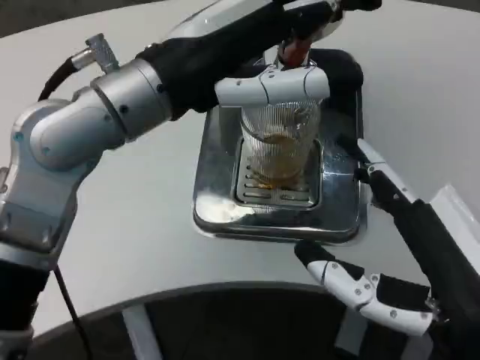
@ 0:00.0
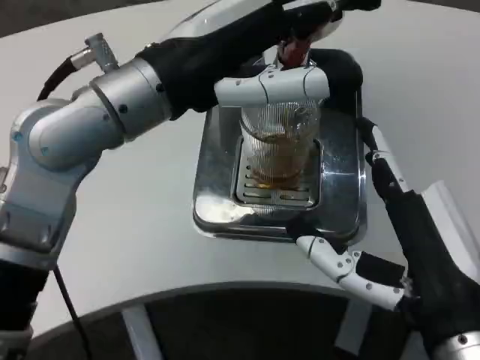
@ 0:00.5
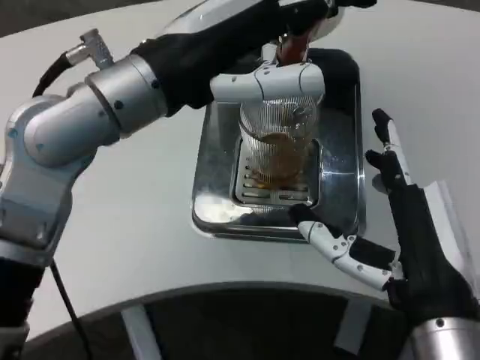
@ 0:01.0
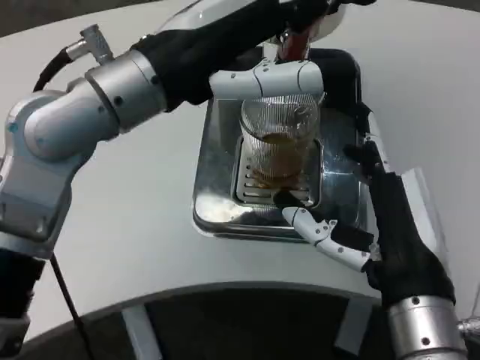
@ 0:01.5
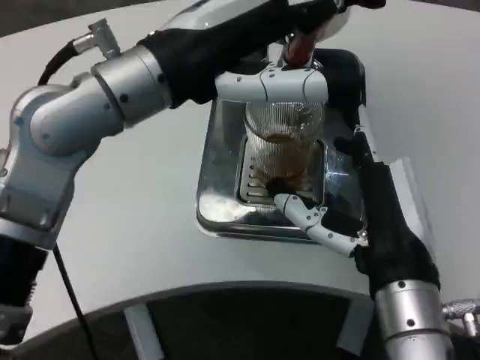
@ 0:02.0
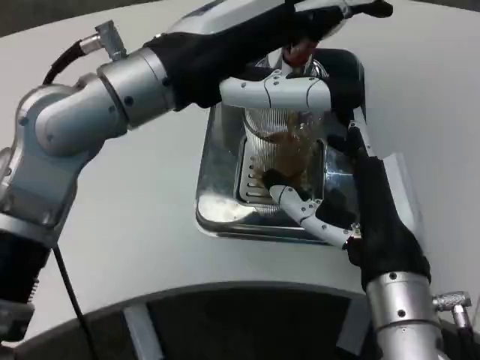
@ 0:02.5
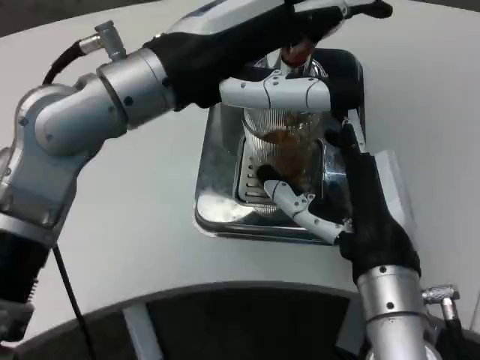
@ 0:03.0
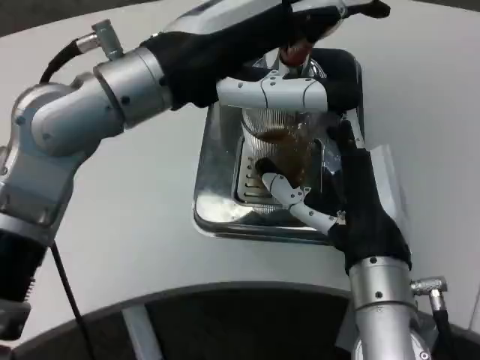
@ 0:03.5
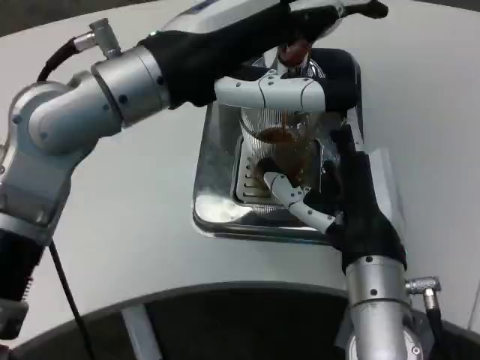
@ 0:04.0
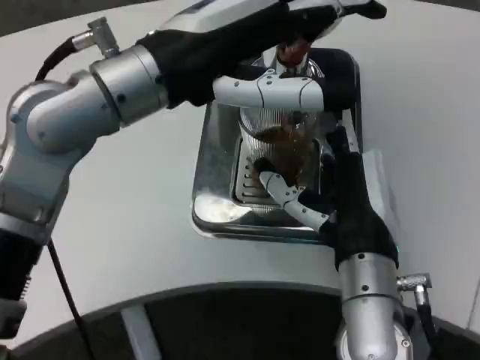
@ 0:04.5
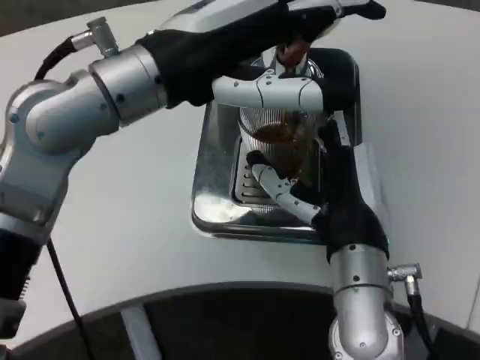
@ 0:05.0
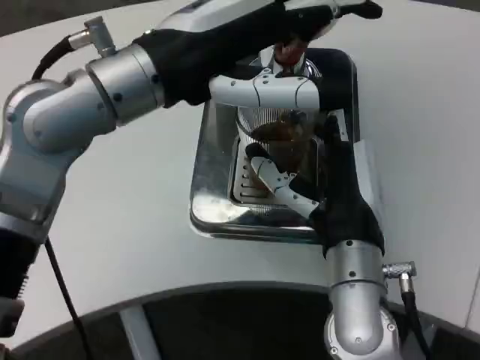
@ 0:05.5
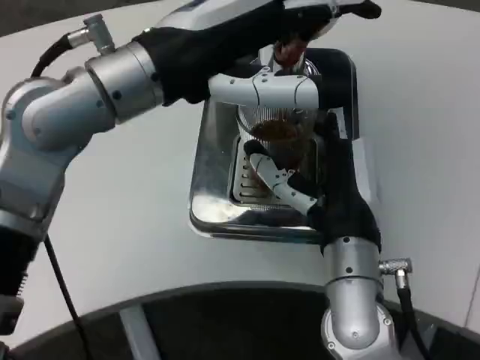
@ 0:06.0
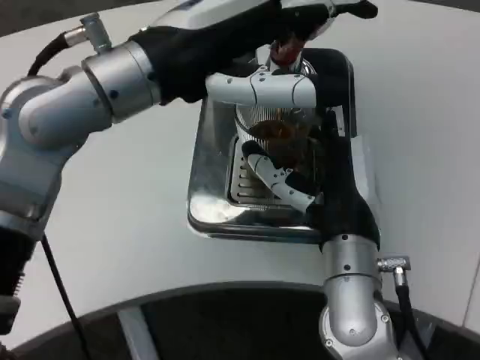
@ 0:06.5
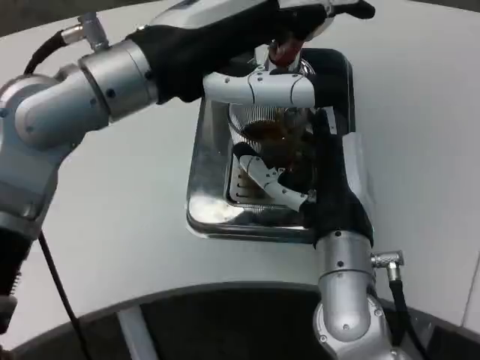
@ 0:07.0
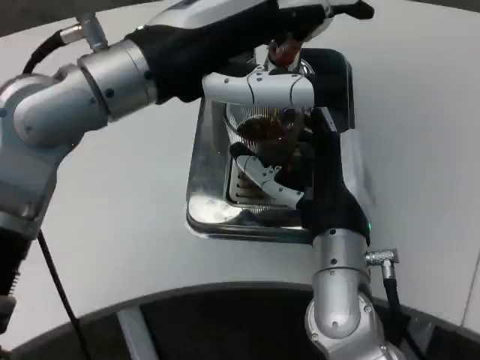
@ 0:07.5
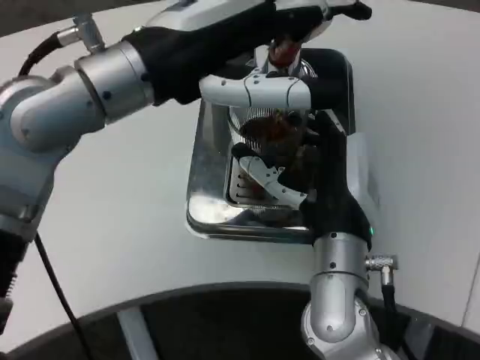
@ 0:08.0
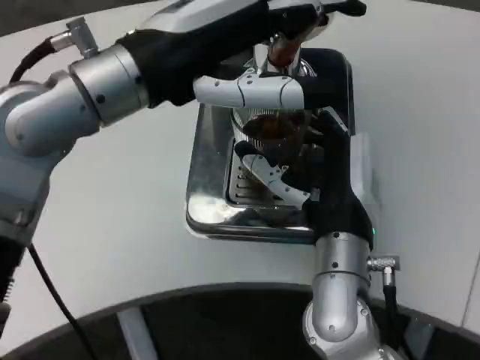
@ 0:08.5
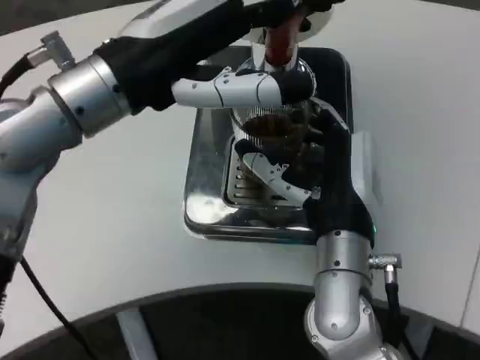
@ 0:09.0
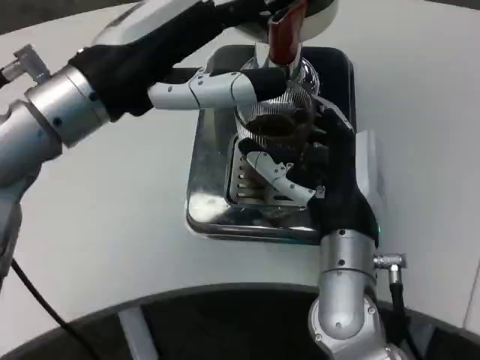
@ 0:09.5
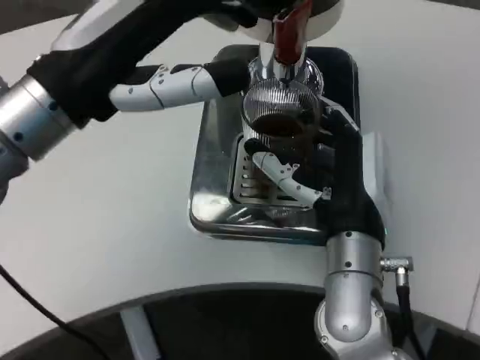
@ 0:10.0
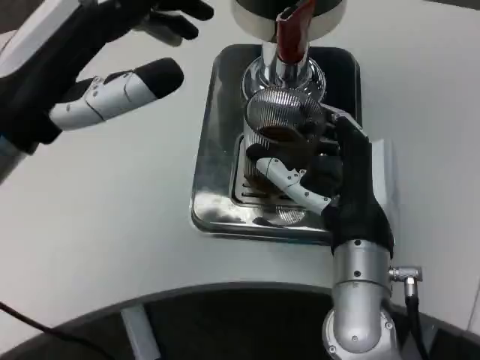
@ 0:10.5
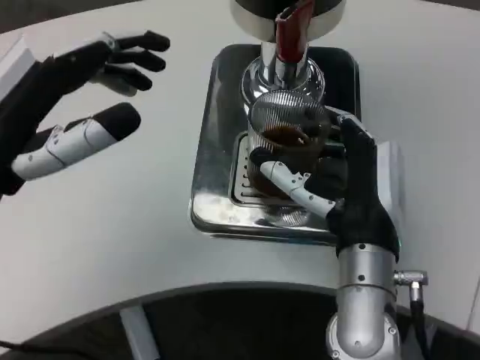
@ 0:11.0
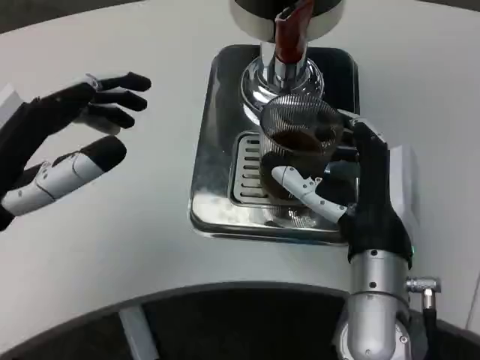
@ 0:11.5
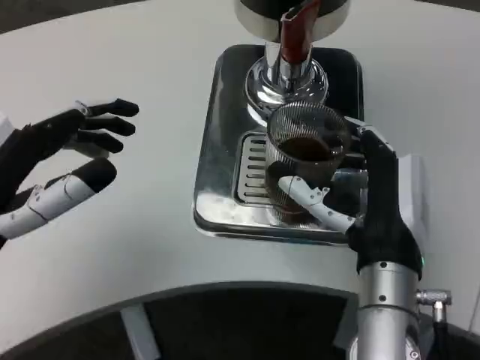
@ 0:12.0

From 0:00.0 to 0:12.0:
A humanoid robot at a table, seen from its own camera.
Task of the whole recording: Grasp the cup under the faucet to collect the drink, then remove the cup.
From 0:00.0 to 0:02.0: The right hand heads forward, covering roughly 10 cm.
From 0:08.0 to 0:10.0: The left hand moves to the left, approximately 5 cm.
From 0:10.0 to 0:12.0: The left hand is displaced downward, backward and to the left by roughly 15 cm.

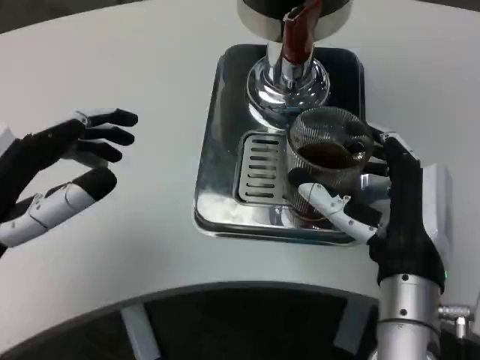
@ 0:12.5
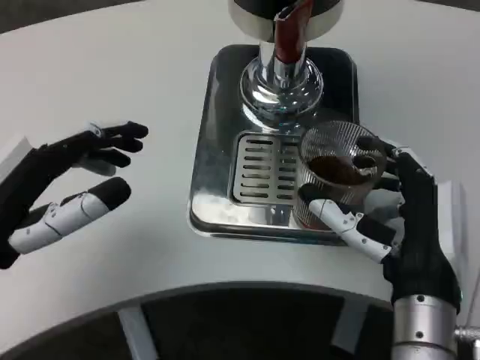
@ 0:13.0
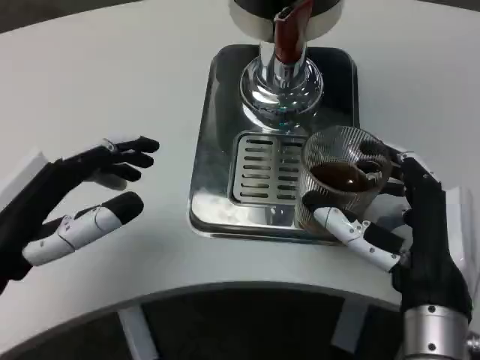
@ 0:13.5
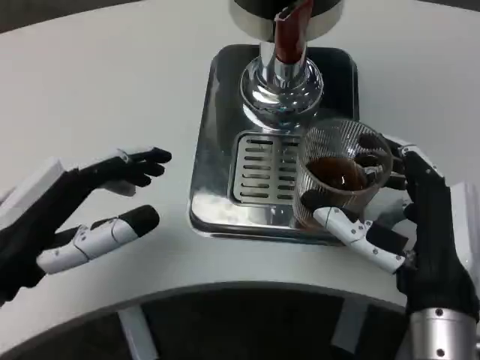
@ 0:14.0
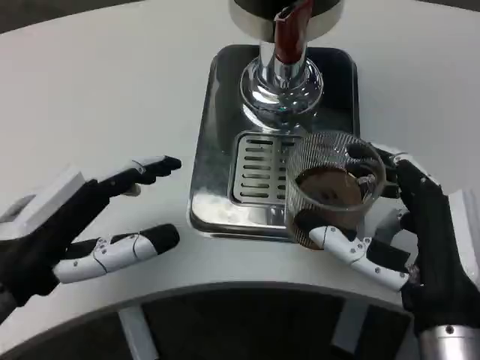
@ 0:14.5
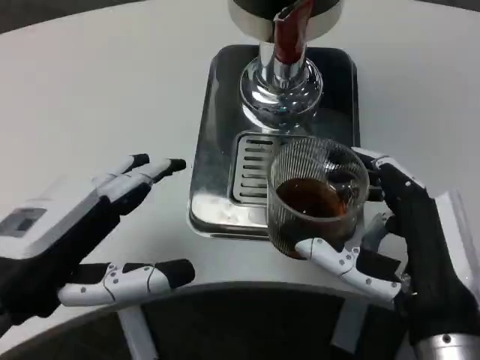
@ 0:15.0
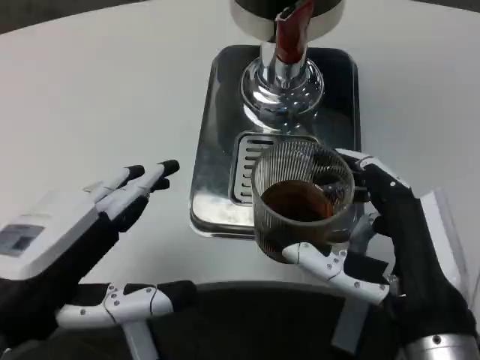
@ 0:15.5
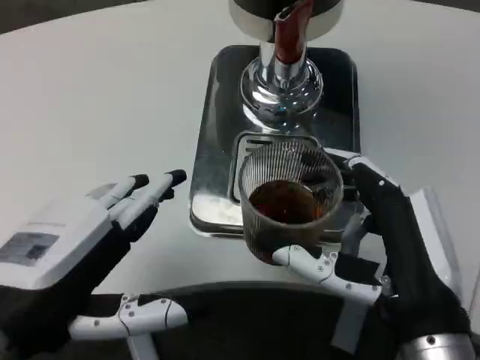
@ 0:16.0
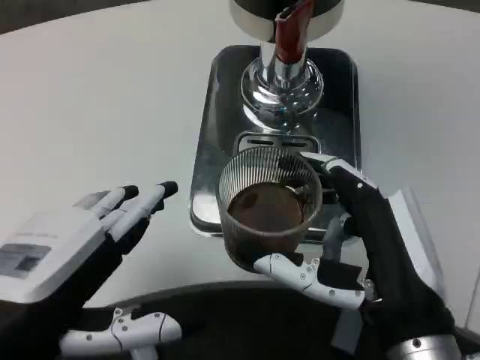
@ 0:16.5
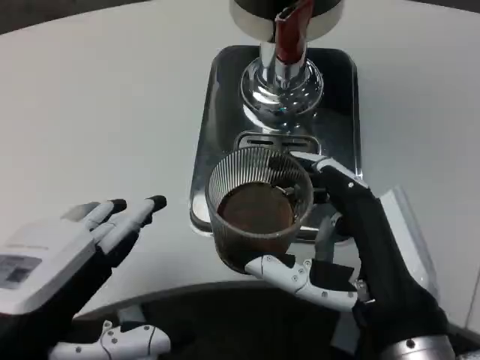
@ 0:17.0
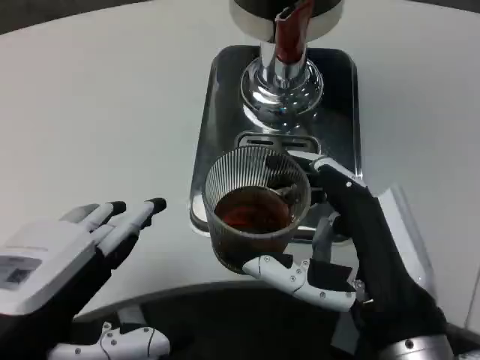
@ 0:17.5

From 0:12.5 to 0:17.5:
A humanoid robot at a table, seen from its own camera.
Task of the whole recording: Grasp the cup under the faucet to collect the drink, then remove the cup.
From 0:12.5 to 0:15.0: The right hand heads backward, covering roughly 5 cm.
From 0:15.0 to 0:17.5: The left hand is displaced backward by about 5 cm.

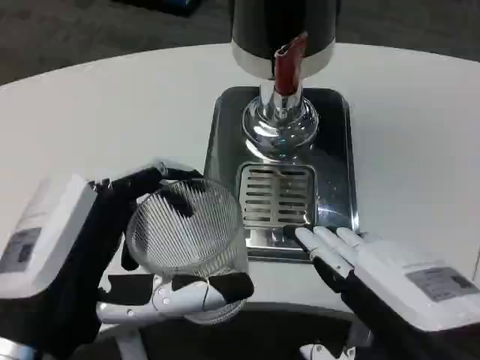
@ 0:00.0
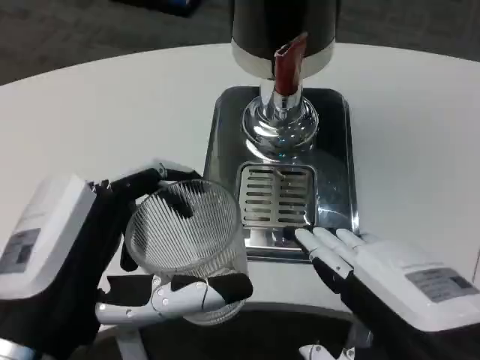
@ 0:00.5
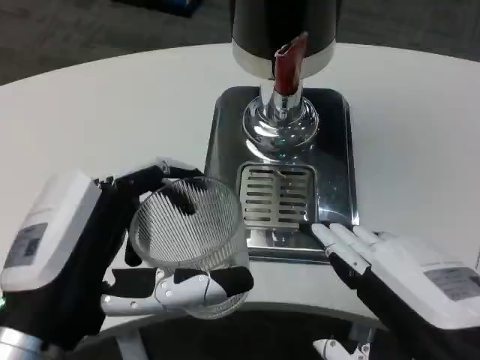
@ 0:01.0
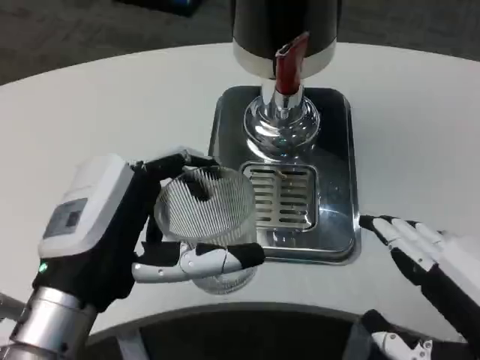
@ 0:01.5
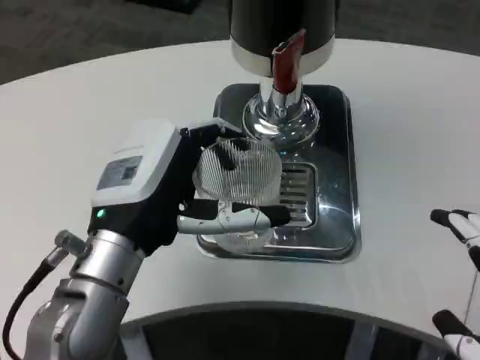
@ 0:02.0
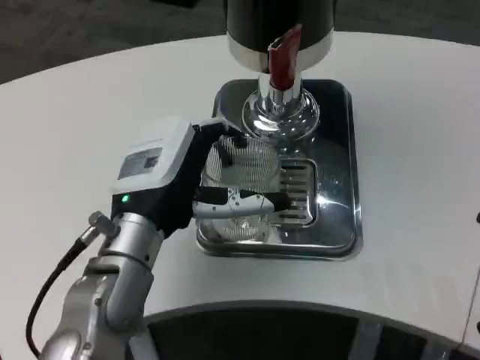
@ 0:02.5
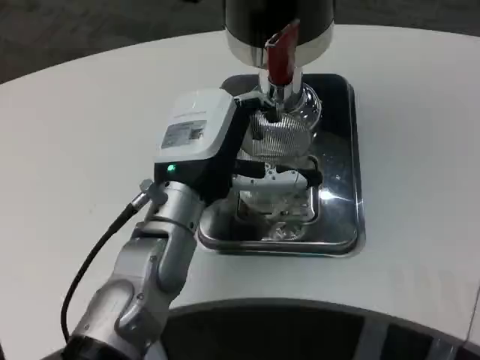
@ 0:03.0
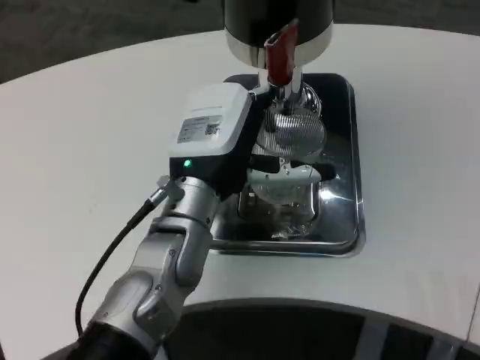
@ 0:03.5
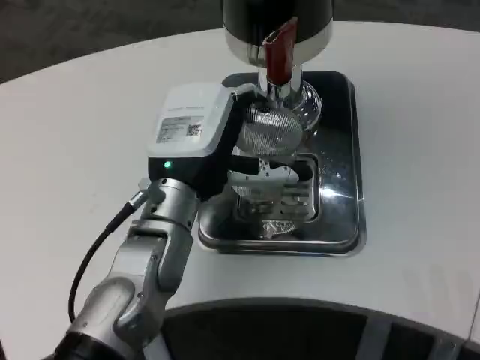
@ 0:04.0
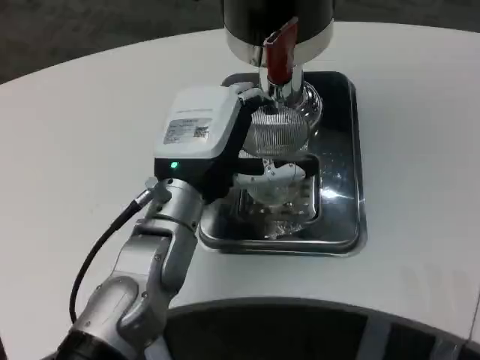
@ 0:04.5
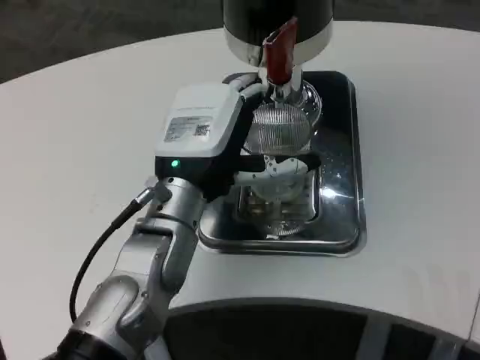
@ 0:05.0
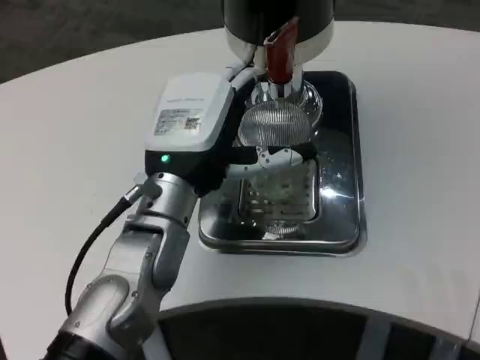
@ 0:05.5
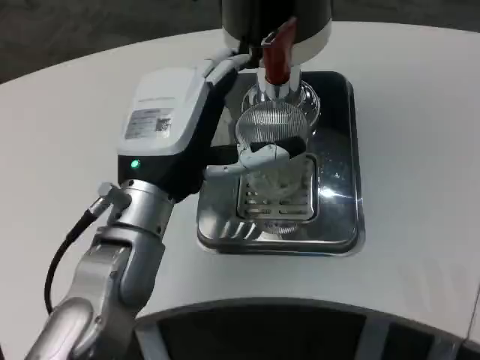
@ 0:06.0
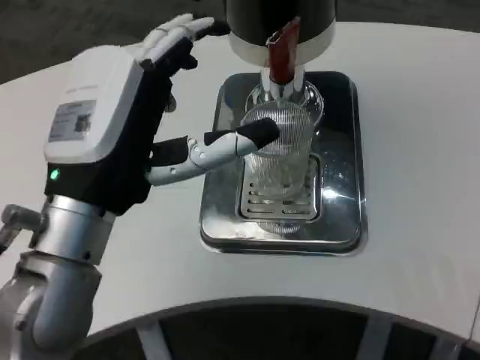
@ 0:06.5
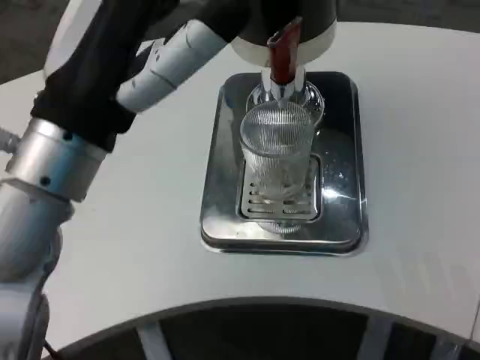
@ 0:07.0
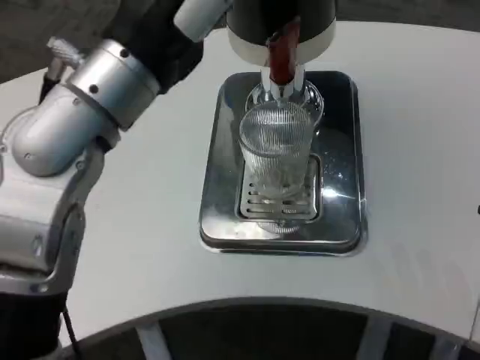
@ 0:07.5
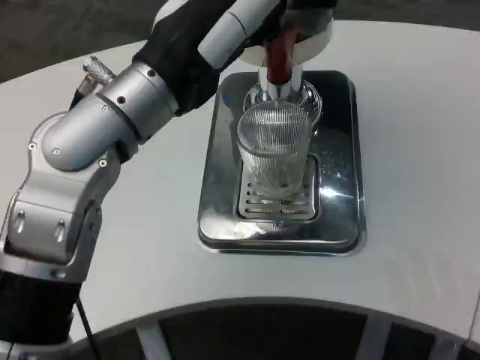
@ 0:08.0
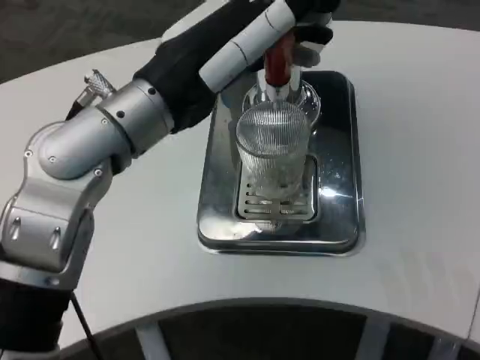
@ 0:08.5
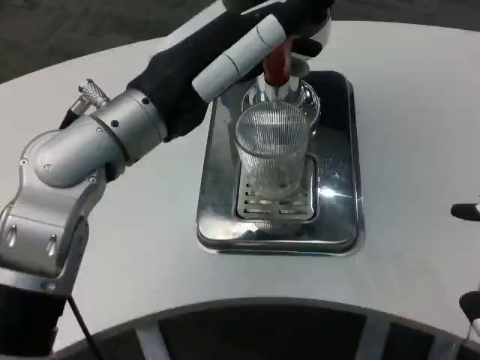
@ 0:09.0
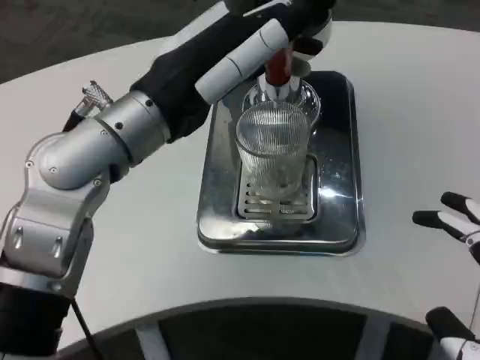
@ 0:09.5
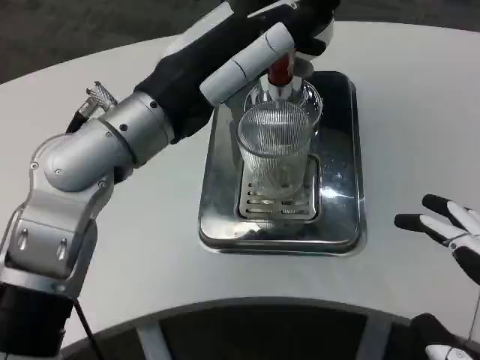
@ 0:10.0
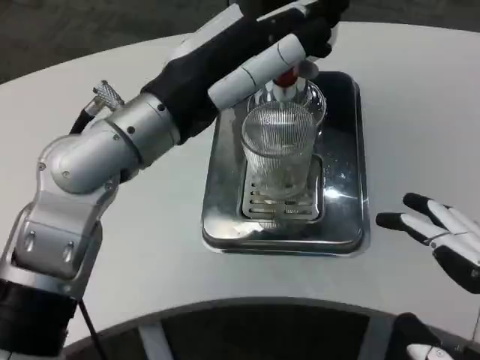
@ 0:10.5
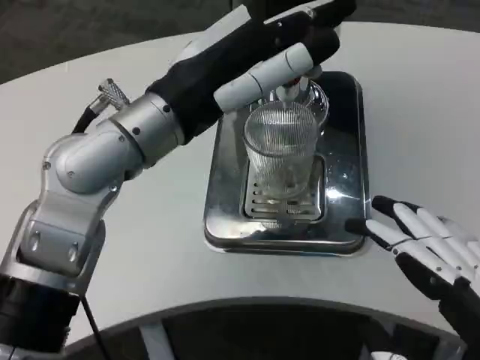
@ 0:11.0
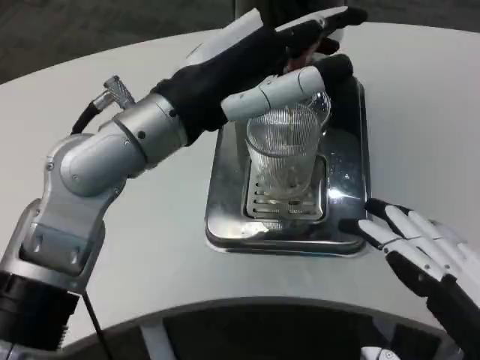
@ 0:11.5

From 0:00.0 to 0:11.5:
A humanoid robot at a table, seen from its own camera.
Task of the whole recording: Grasp the cup under the faucet to collect the drink, then remove the cup.
From 0:00.0 to 0:02.0: The right hand travels to the right by roughly 5 cm; the left hand is displaced forward by approximately 10 cm.
From 0:02.0 to 0:04.0: The left hand moves forward, approximately 5 cm, while the right hand changes place by some 5 cm.
From 0:04.0 to 0:06.0: The hands move only a little.
From 0:06.0 to 0:07.5: The left hand travels upward by approximately 15 cm.
